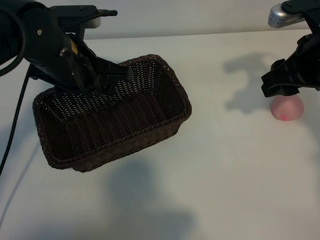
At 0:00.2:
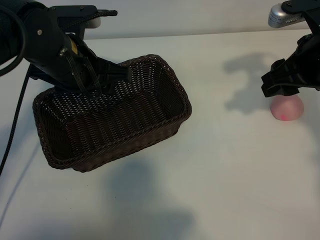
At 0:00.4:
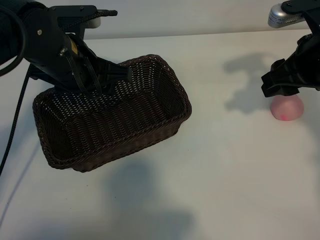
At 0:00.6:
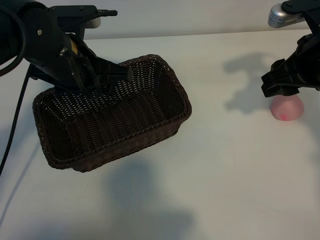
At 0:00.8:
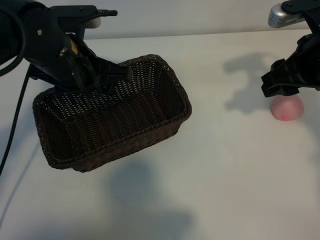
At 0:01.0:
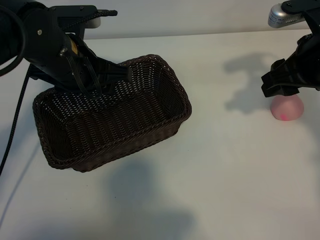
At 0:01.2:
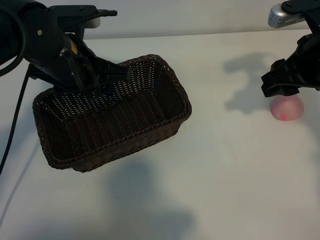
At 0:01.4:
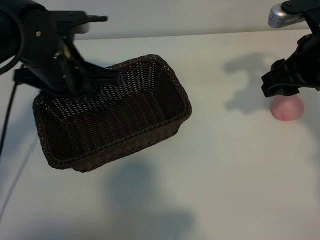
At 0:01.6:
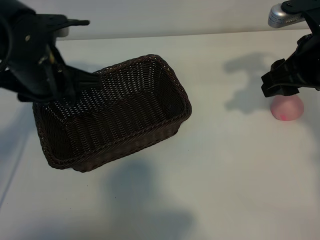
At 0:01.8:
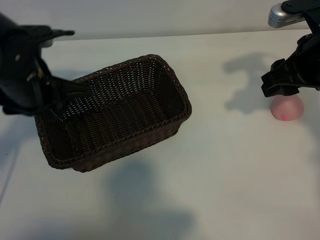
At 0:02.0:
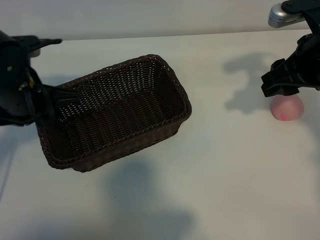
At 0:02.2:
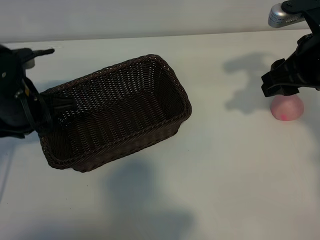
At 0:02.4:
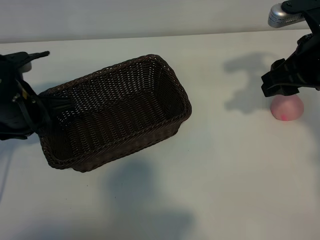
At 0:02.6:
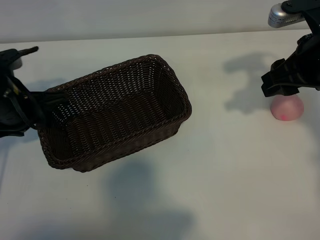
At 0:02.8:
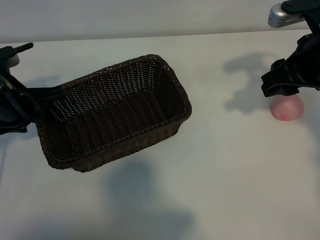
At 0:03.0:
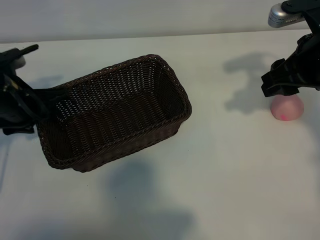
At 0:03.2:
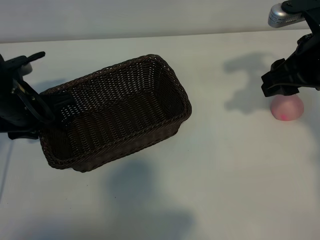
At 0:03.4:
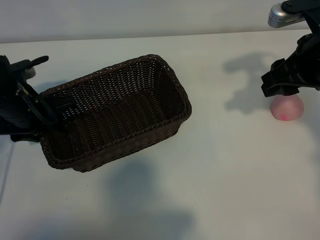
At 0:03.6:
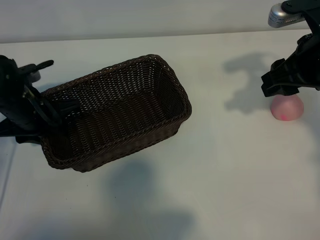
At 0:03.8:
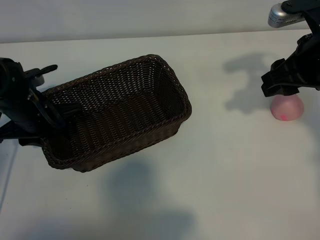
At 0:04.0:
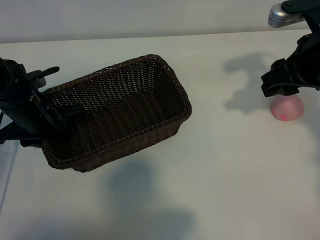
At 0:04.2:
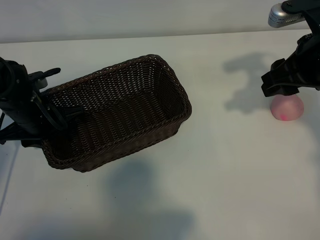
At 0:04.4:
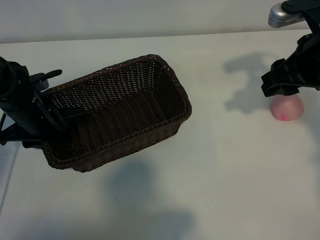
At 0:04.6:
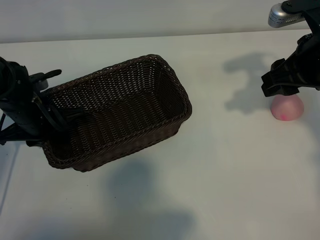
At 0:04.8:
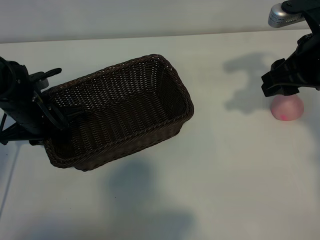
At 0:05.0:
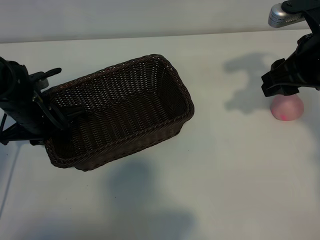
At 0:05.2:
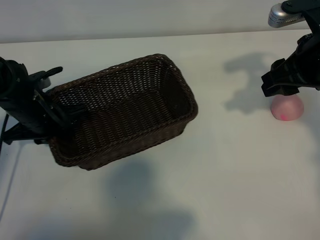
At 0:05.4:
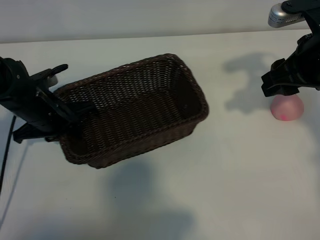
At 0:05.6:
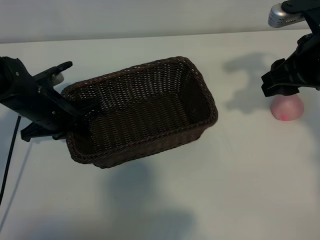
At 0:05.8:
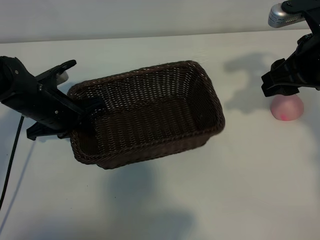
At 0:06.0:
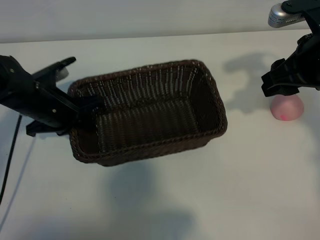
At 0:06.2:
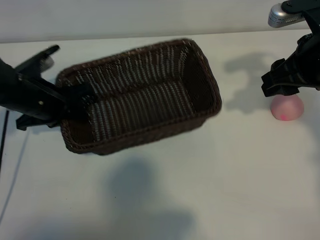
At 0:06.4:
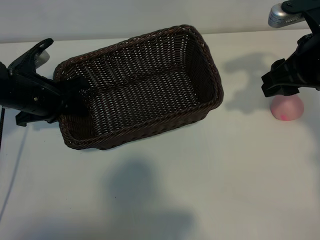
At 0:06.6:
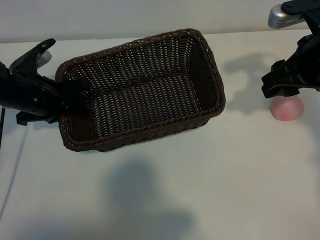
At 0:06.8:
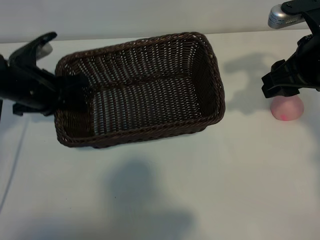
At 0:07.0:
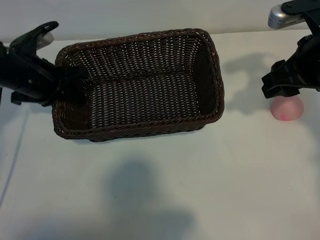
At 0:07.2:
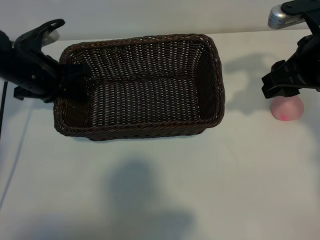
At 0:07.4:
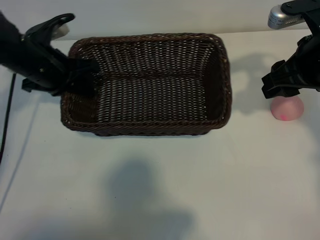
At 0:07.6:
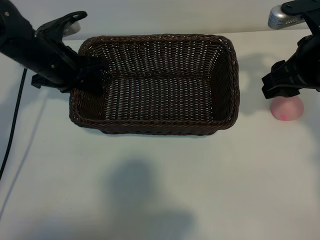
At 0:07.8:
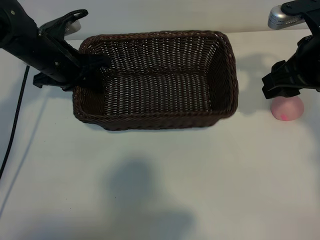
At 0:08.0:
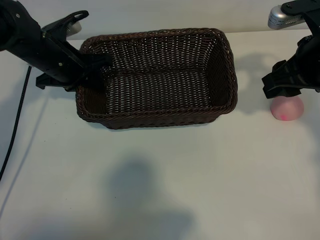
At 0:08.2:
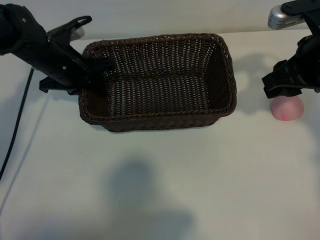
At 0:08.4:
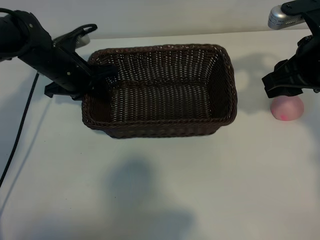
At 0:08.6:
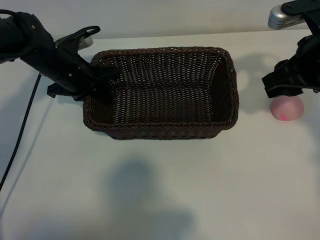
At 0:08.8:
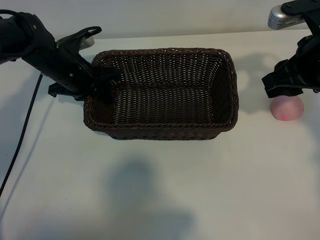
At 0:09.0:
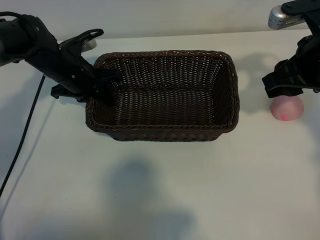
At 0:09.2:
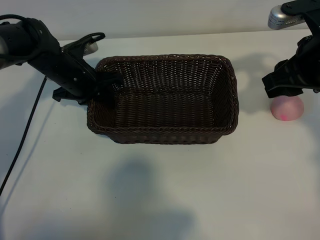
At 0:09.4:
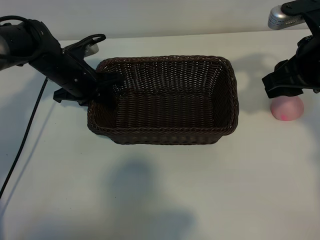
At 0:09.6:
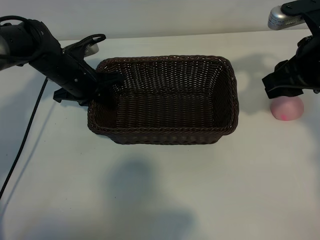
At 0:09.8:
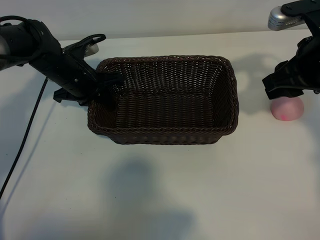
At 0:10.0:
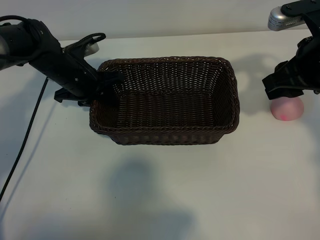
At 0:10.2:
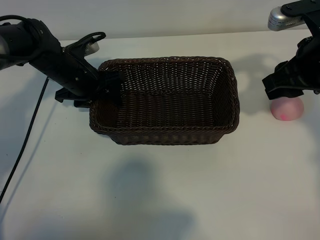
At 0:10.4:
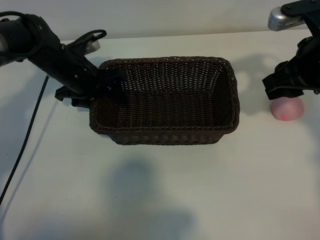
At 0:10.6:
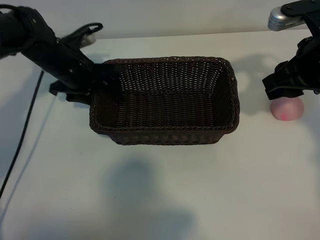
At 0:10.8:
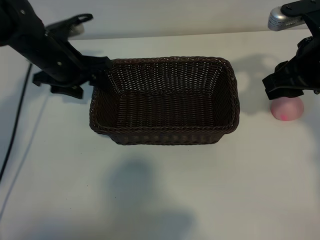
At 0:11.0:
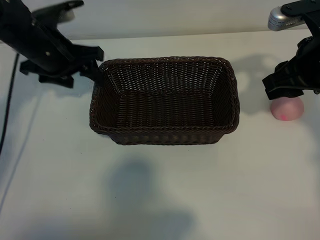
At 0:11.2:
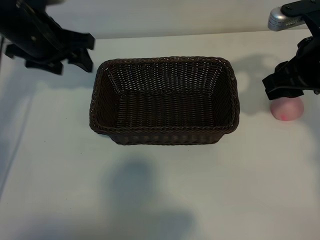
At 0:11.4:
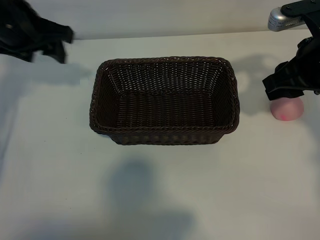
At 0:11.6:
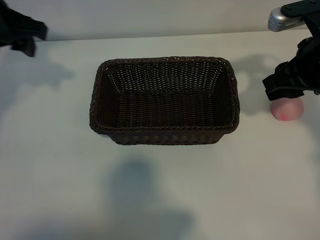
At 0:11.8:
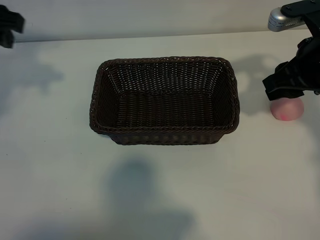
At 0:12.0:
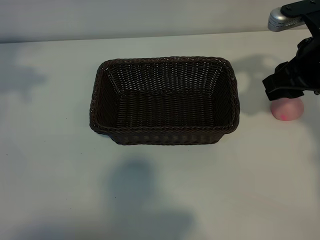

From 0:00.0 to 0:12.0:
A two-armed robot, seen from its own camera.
Task of the whole recording: pick up the peach and put it into the basket.
Step, from 0:01.2 to 0:04.6: Grasp the basket with left gripper.
Step, from 0:05.0 to 0:10.6: Place the basket in the center of view with left gripper.

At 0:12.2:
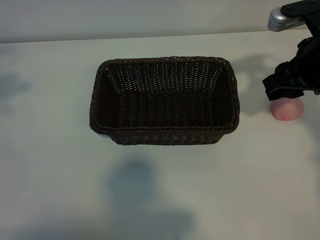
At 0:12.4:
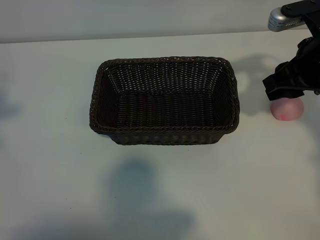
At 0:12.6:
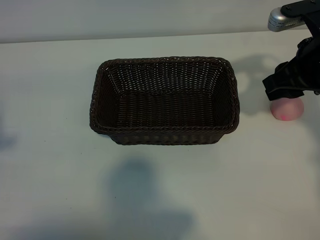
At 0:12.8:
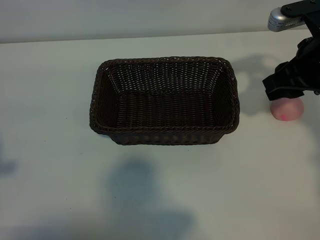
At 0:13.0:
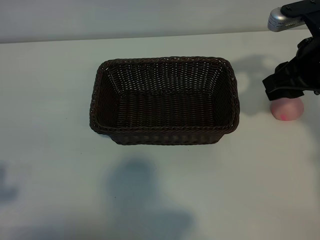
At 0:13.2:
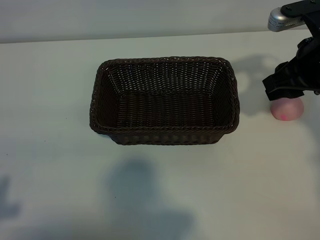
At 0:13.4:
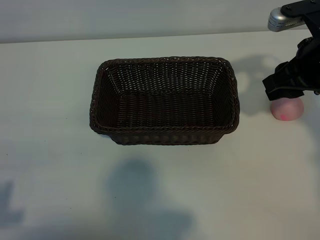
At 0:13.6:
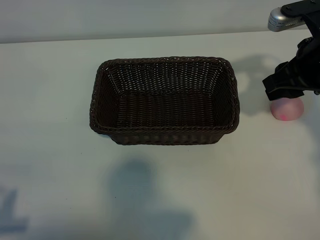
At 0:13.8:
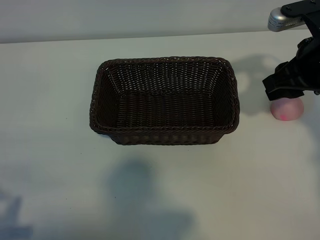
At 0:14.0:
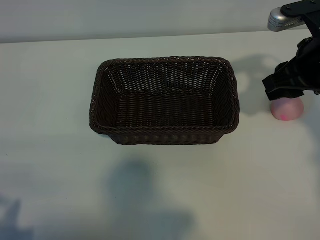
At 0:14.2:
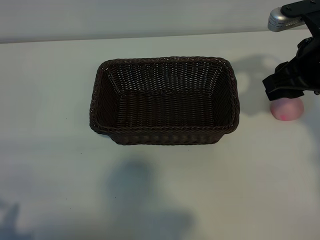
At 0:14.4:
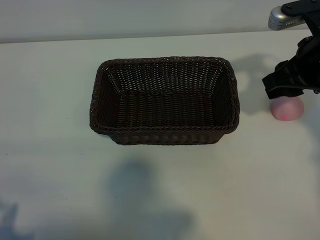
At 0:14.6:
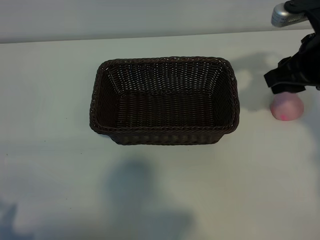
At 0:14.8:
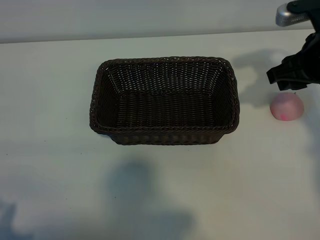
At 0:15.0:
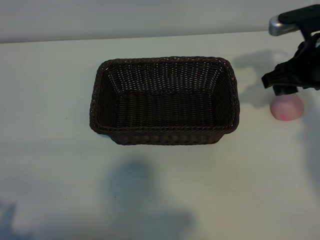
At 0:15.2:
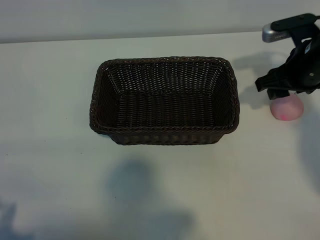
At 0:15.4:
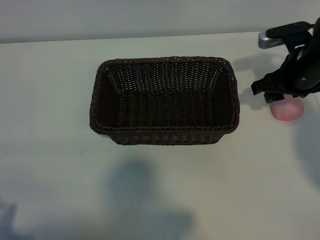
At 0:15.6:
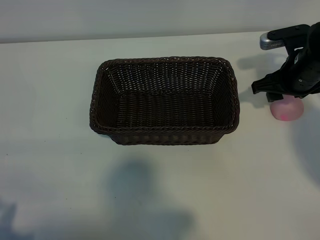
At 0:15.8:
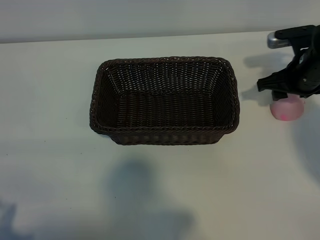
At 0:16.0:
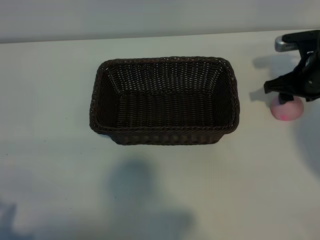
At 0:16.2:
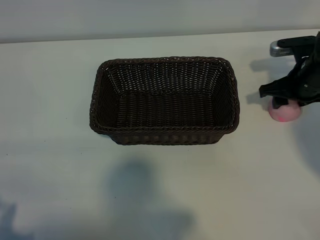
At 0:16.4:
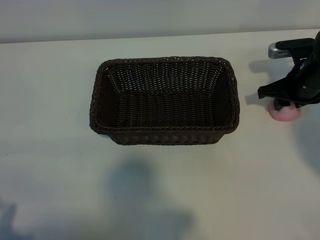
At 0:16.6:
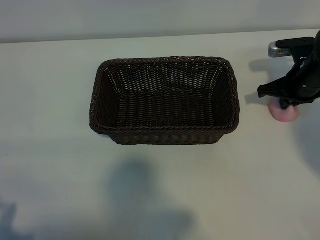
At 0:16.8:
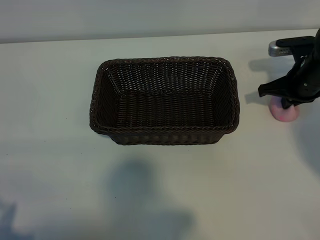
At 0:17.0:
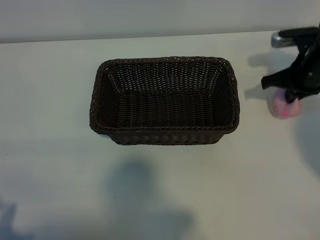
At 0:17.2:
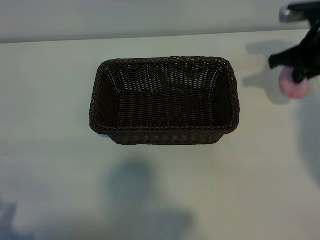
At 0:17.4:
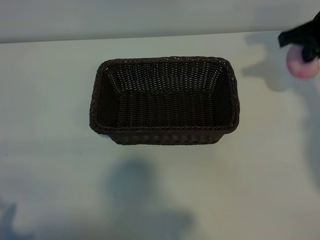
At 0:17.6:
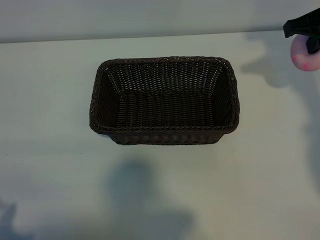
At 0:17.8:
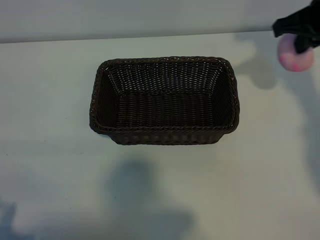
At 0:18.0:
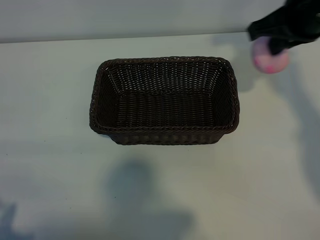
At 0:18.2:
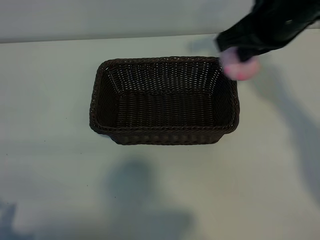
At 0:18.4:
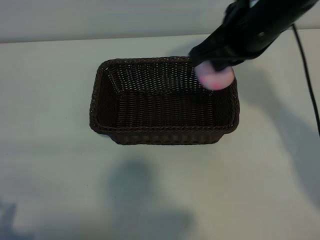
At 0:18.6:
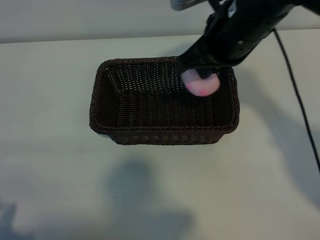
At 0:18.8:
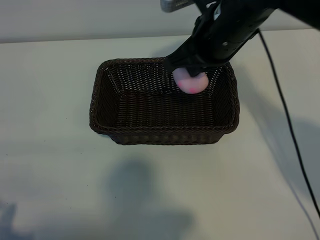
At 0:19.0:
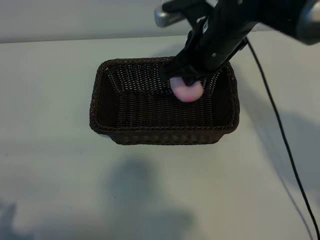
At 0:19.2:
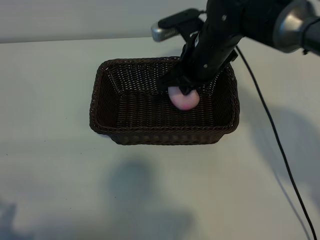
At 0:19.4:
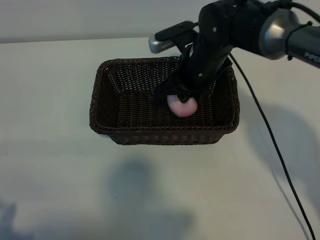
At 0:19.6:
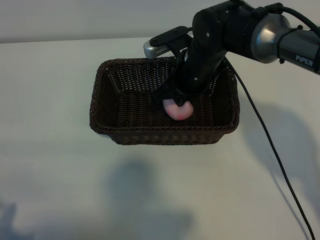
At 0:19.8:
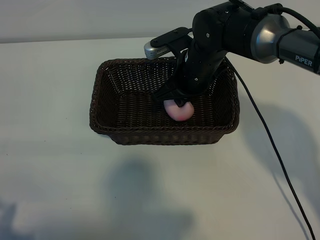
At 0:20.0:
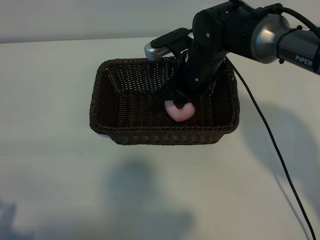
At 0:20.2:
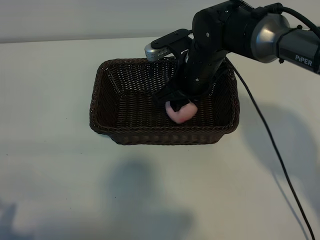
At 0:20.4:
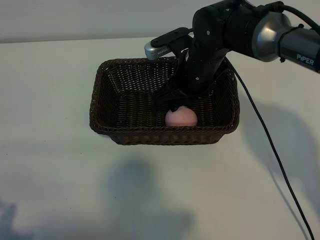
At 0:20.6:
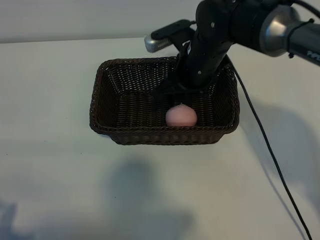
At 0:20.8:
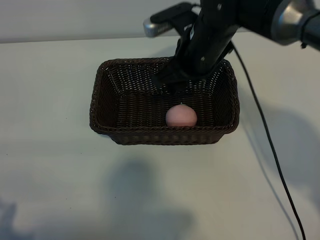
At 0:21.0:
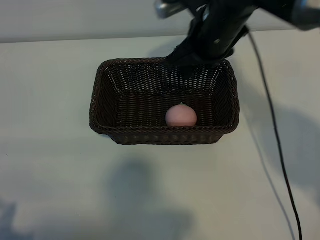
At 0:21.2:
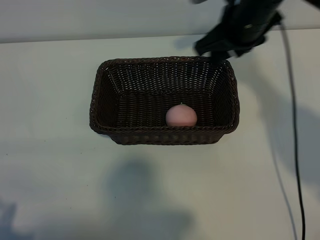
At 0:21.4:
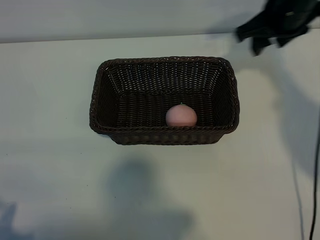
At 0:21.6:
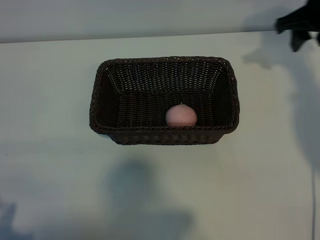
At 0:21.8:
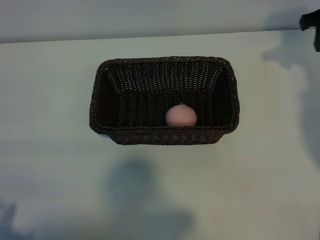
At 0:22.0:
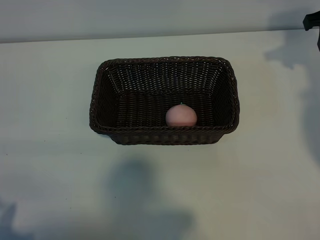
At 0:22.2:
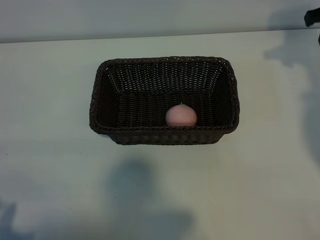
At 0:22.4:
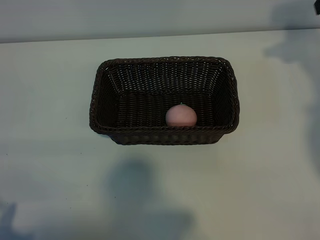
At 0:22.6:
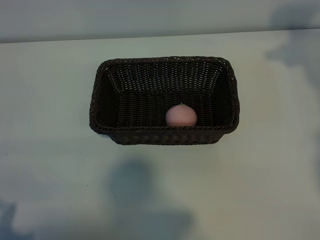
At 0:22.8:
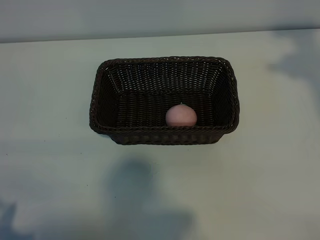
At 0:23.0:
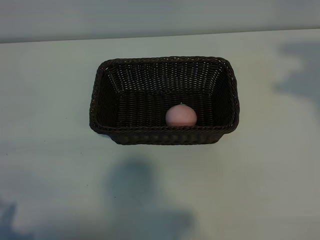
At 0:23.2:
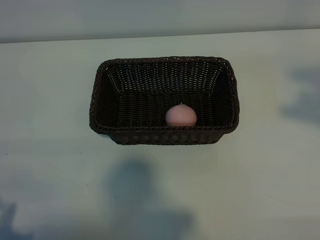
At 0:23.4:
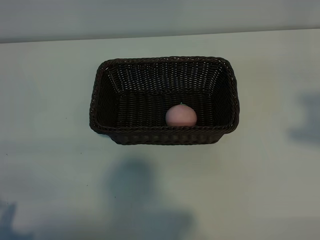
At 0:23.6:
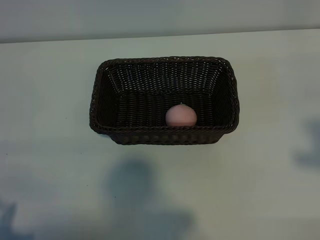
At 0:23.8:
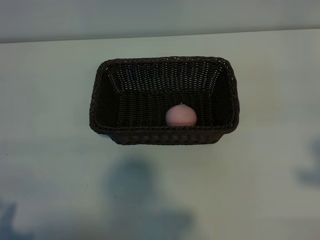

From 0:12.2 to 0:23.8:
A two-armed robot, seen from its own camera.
Task of the whole recording: pick up the peach and put it into the basket.
Step, from 0:12.2 to 0:16.6: Grasp the peach with right gripper.
Step, from 0:16.8 to 0:20.4: Place the peach in the basket with right gripper.
